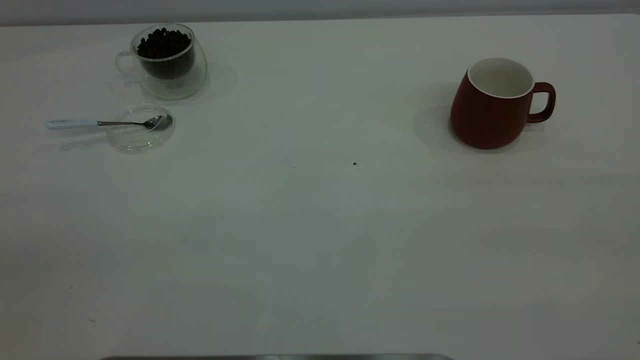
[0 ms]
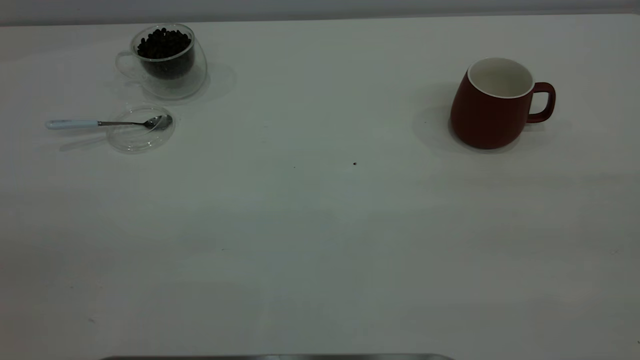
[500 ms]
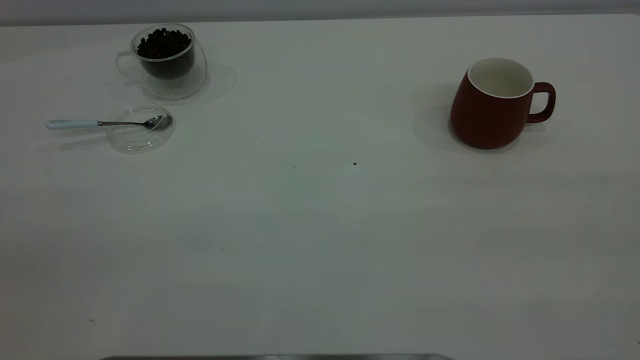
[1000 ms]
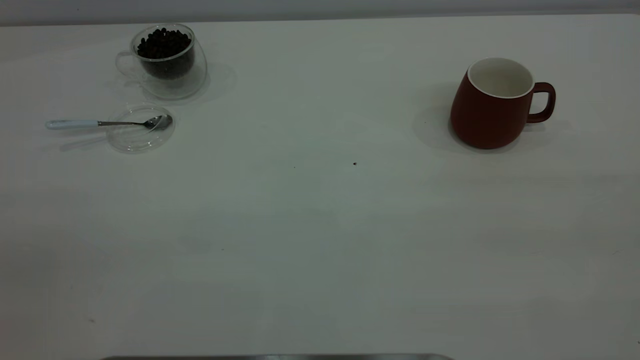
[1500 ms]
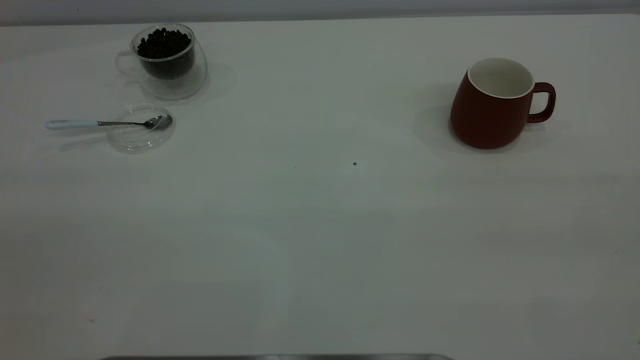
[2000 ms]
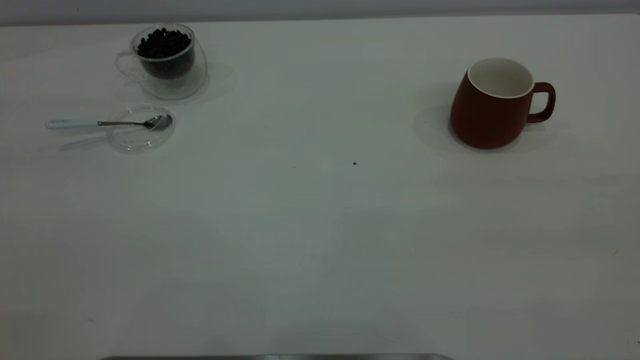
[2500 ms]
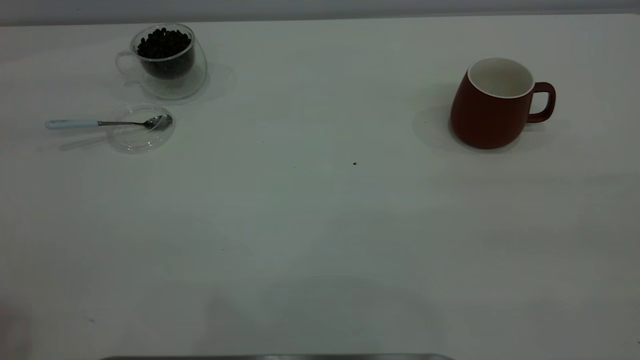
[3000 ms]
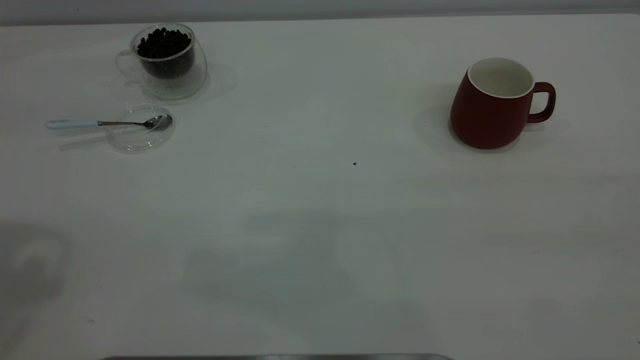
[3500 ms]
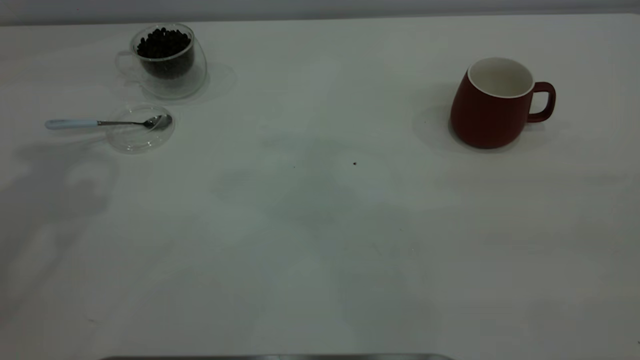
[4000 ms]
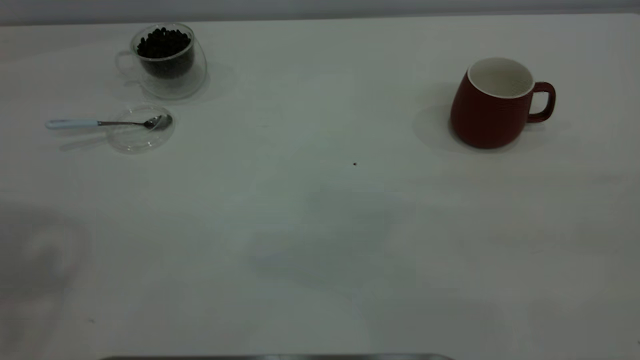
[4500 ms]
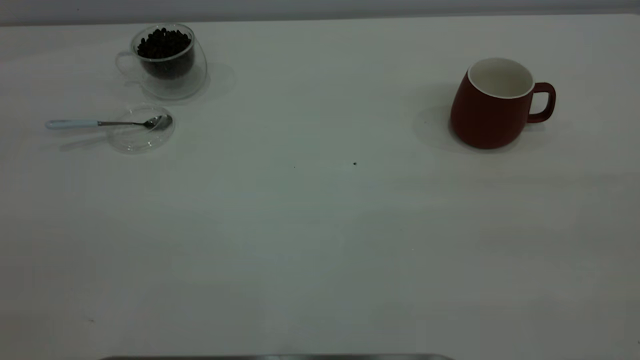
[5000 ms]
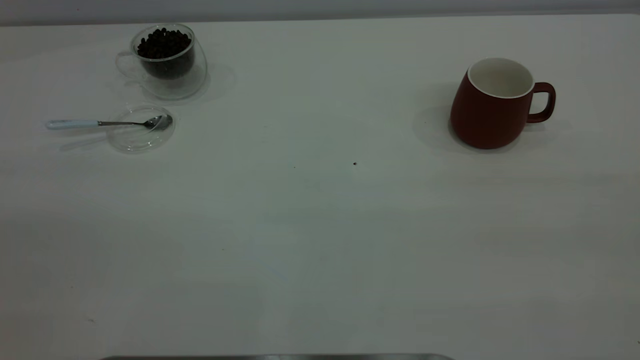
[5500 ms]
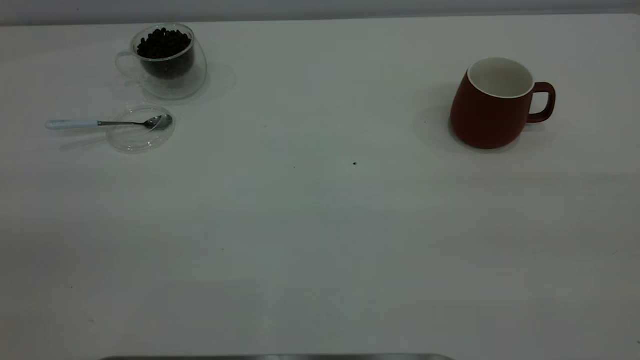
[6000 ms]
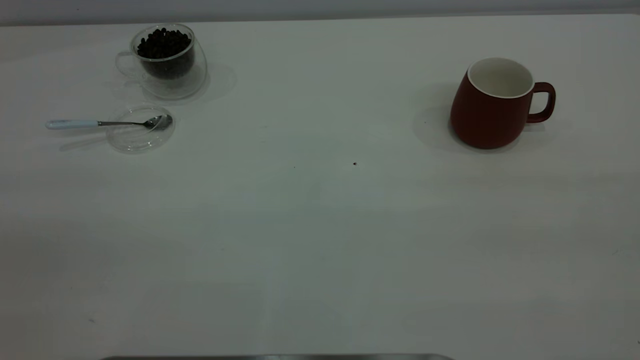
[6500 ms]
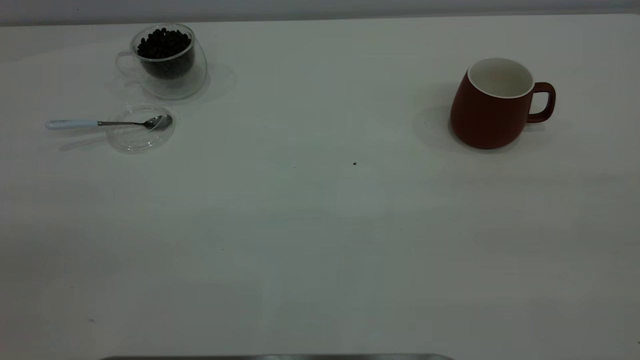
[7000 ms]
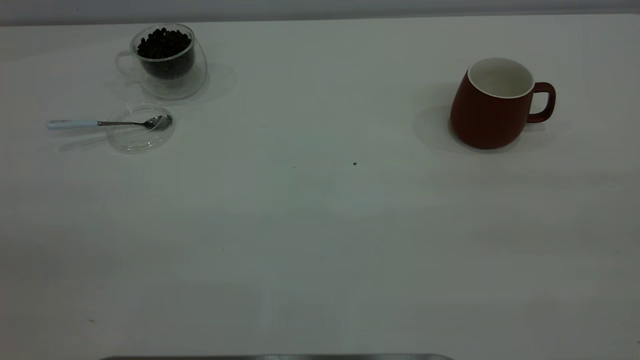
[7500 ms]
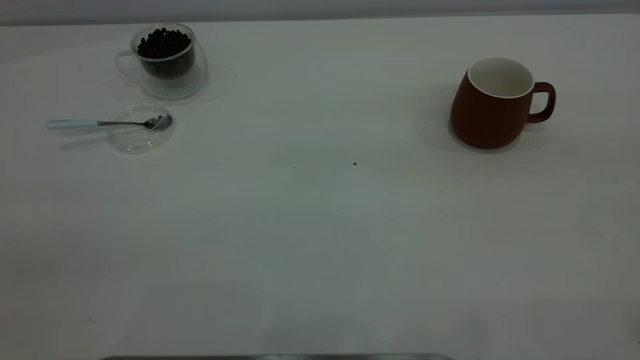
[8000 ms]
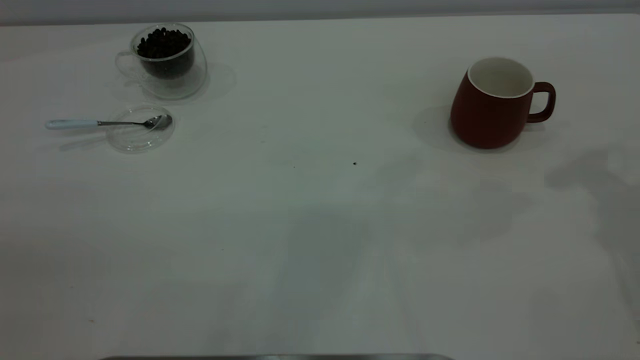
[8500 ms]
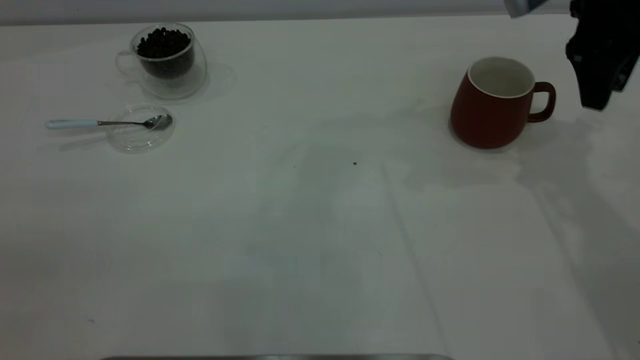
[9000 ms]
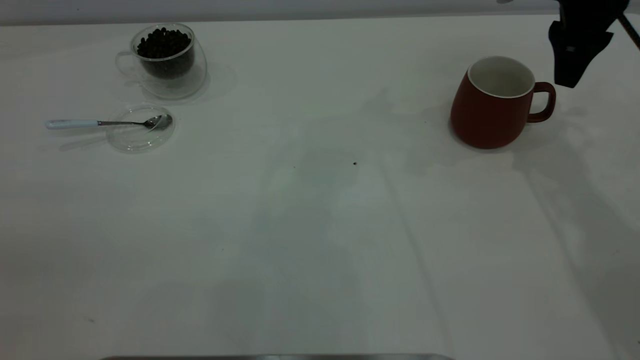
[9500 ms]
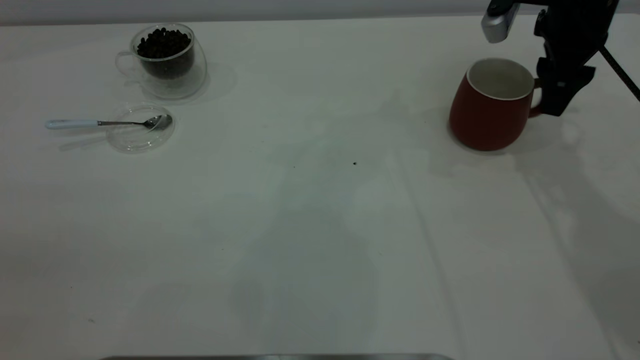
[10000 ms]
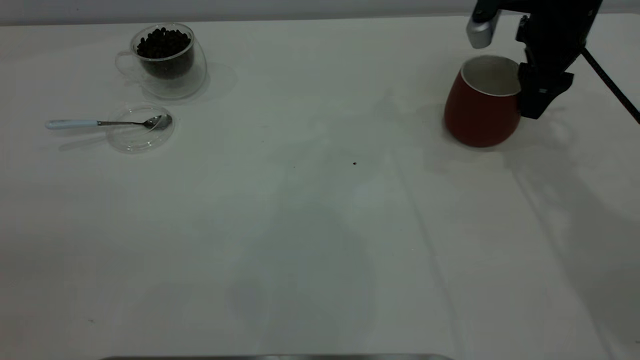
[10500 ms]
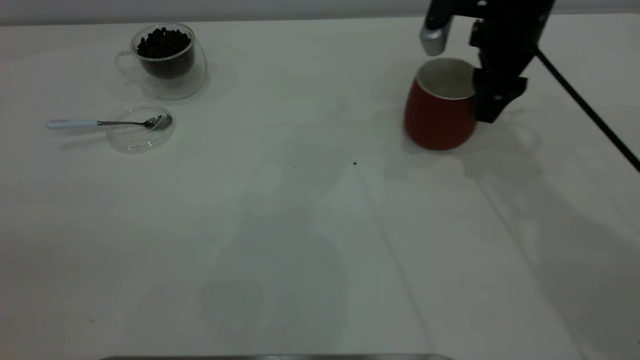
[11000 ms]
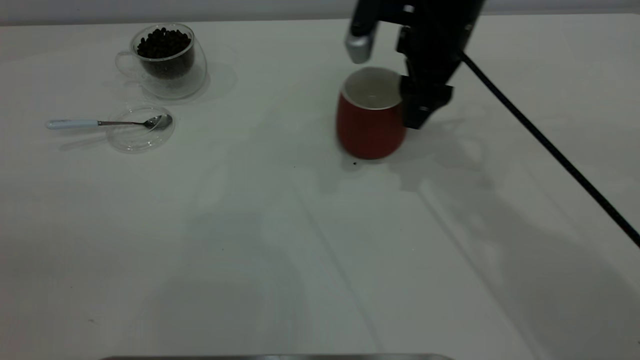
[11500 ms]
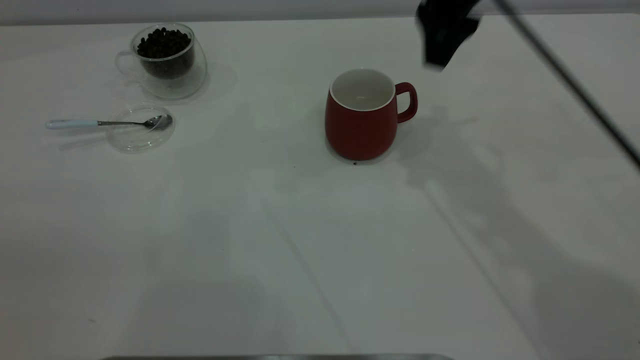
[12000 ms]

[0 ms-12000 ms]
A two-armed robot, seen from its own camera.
Task of the whole recording: the right gripper place the red cup in the center of the table, the left gripper take the blue spoon from the cup lid and scoop out the coffee beans from the coffee cup and put them into the red cup, the left gripper put the spoon back into the cup lid.
Step, 0 ms to 11500 ms: Move the cup to the center of view.
8000 ms to 10000 ms: The right gripper is displaced forward and downward by some 40 cm.
10000 ms to 12000 ms: The right gripper moves to the left and upward, some 15 cm.

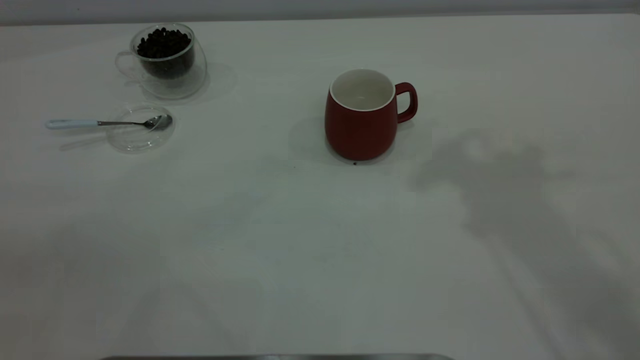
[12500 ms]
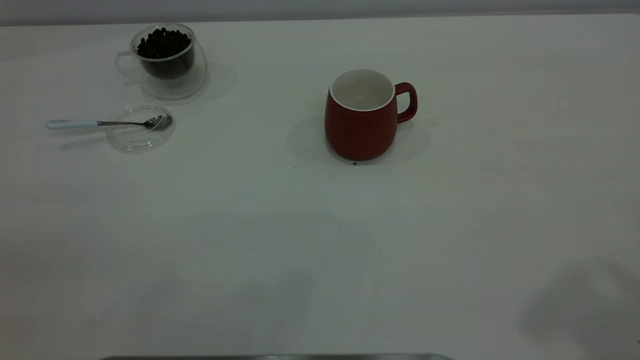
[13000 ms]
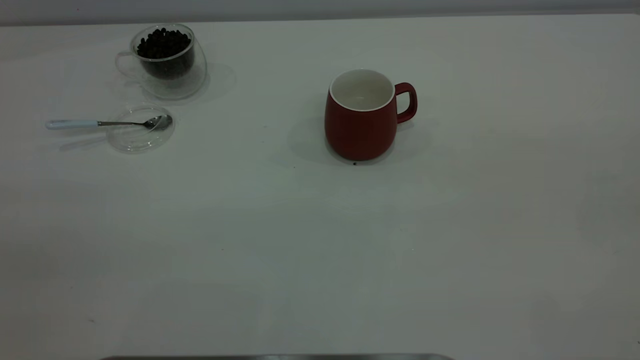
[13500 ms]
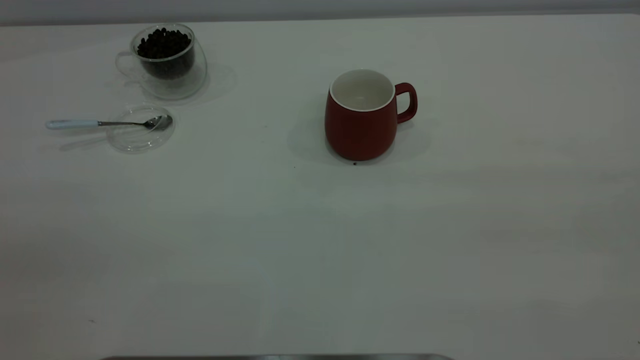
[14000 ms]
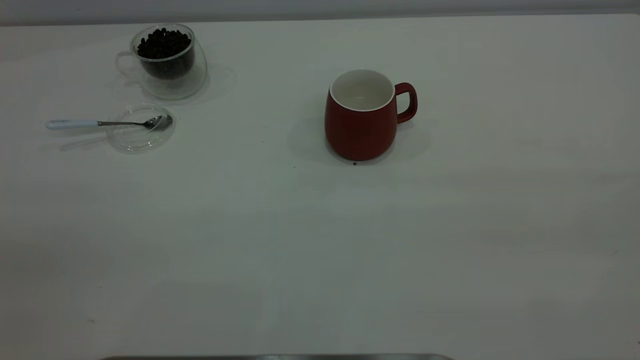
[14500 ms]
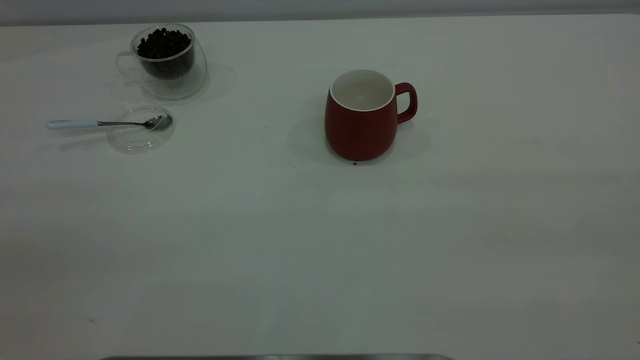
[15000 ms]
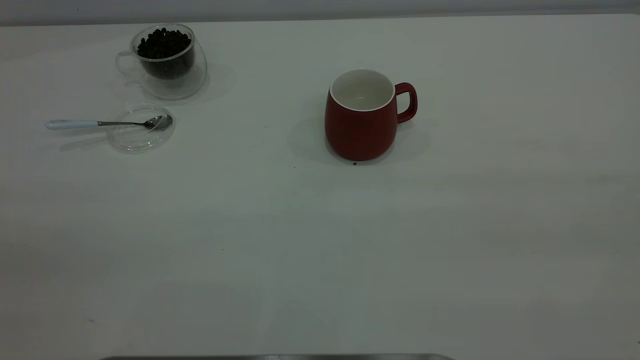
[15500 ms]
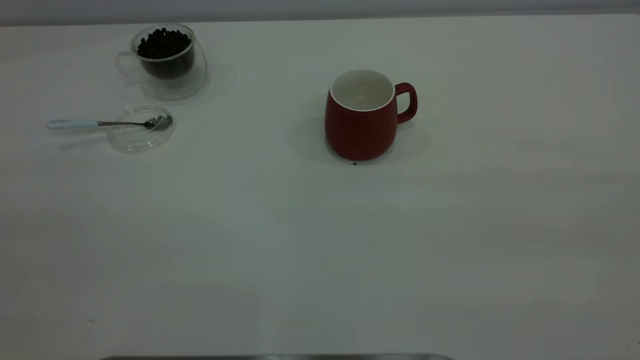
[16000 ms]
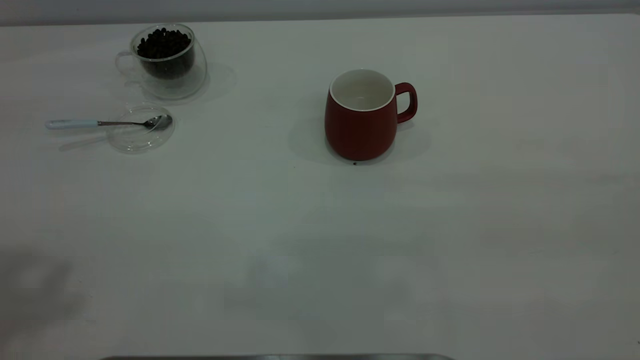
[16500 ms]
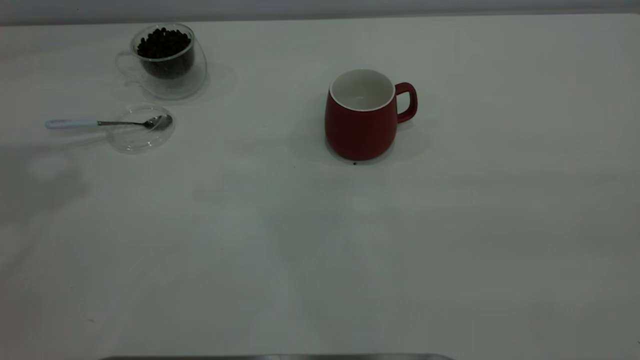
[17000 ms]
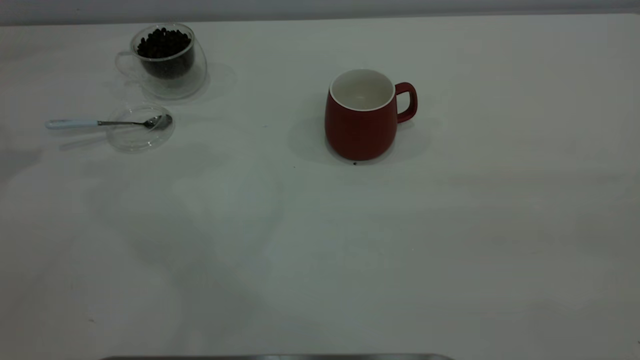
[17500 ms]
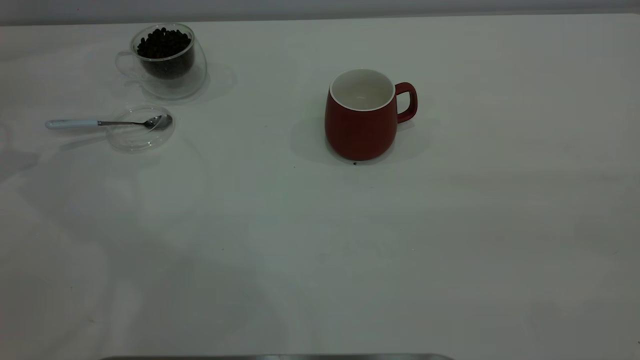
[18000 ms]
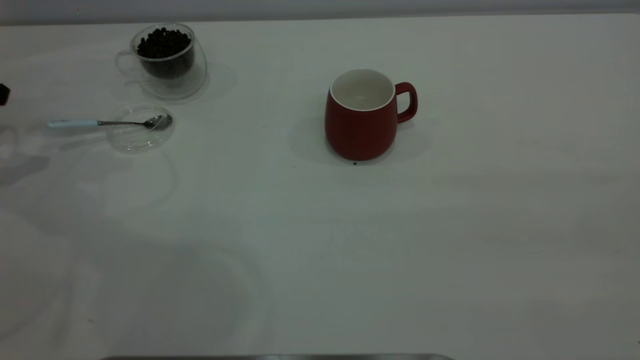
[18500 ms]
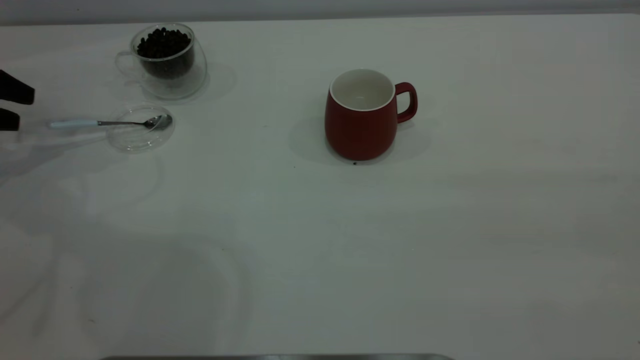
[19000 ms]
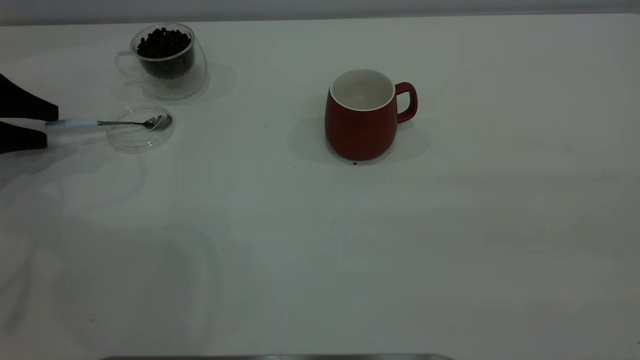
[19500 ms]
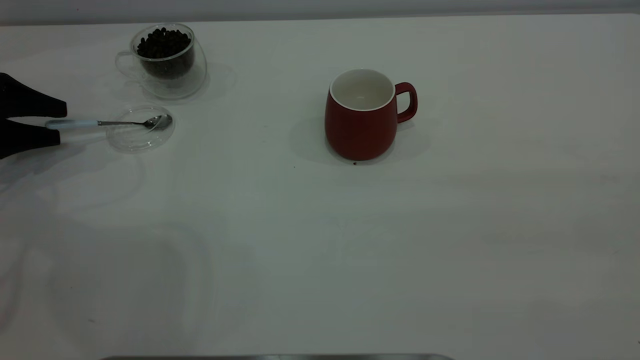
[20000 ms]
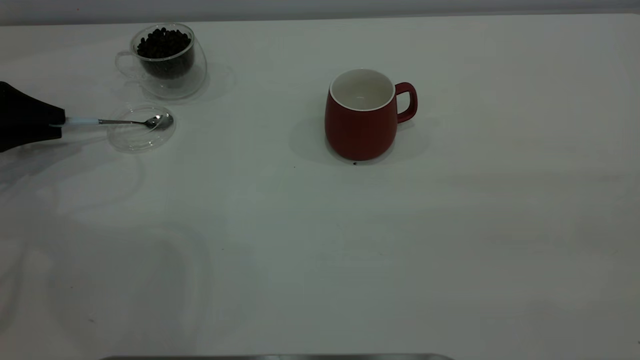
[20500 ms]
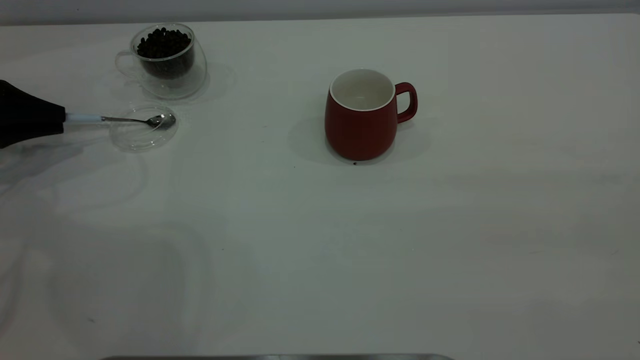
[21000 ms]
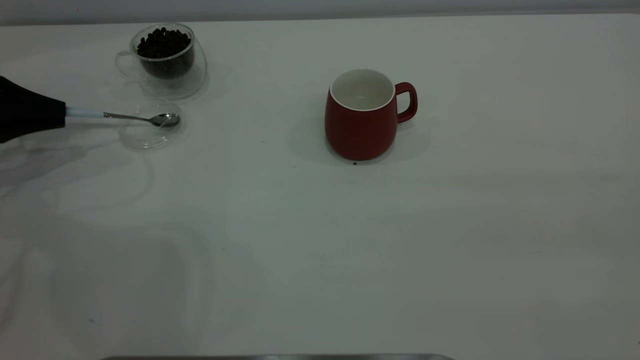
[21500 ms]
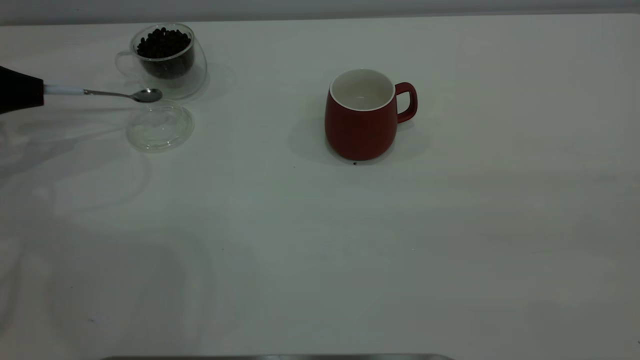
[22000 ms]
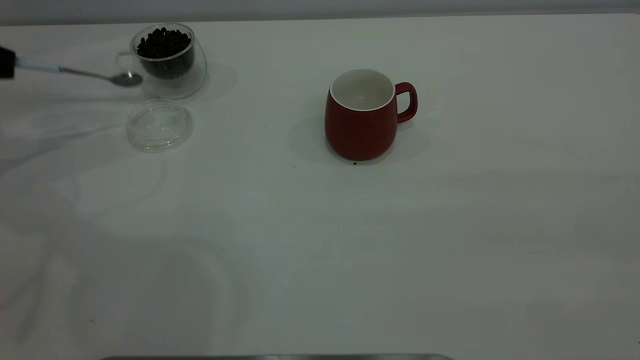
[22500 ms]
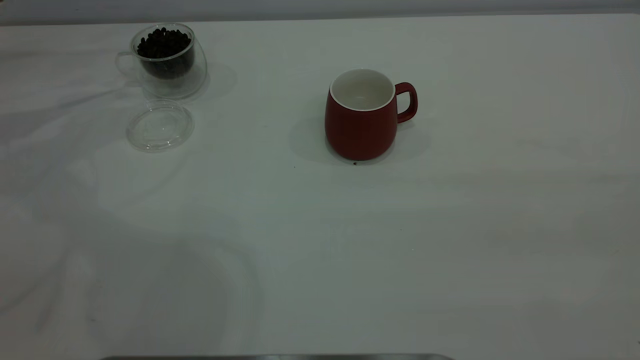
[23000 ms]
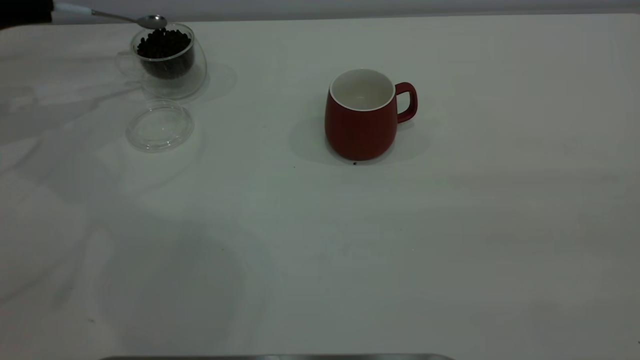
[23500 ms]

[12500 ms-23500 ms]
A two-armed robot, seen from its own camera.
Task of the whole recording: the right gripper place the red cup in the center of the table, the left gripper take the blue spoon from the cup lid and scoop out the coffee beans from the coffee cup and put them into the red cup, the left gripper put the spoon back into the cup lid.
Step, 12500 ms to 22000 ms: Pick up the spoon.
18000 ms to 20000 ms: The left gripper goes some 15 cm downward.
20000 ms to 21500 ms: The left gripper closes.
21500 ms to 23500 ms: The left gripper heads upward and forward, covering some 10 cm.
